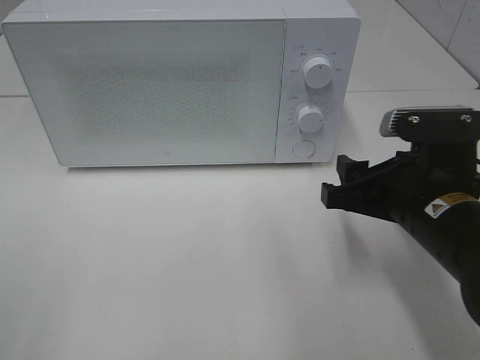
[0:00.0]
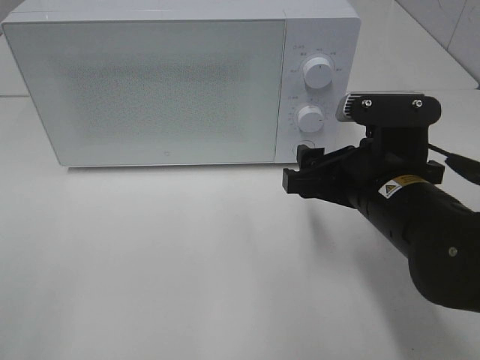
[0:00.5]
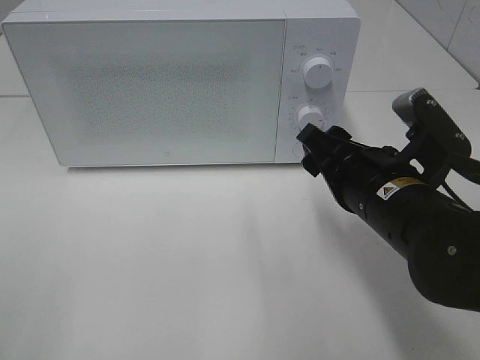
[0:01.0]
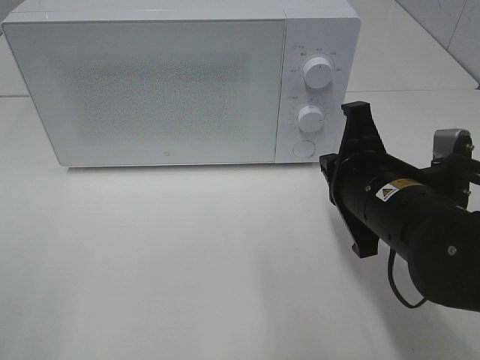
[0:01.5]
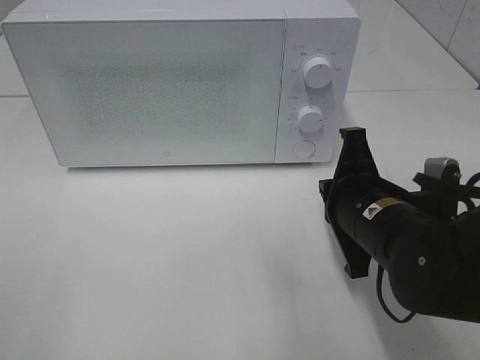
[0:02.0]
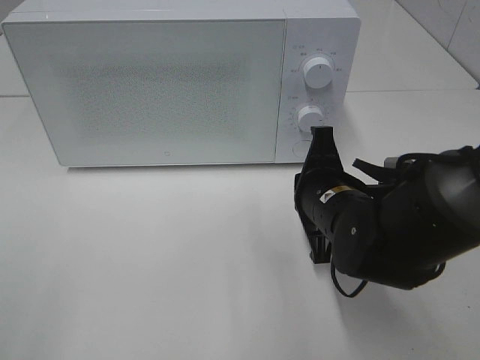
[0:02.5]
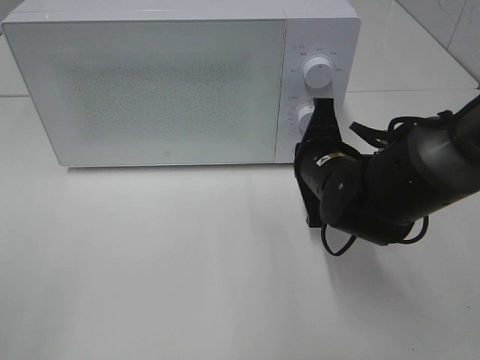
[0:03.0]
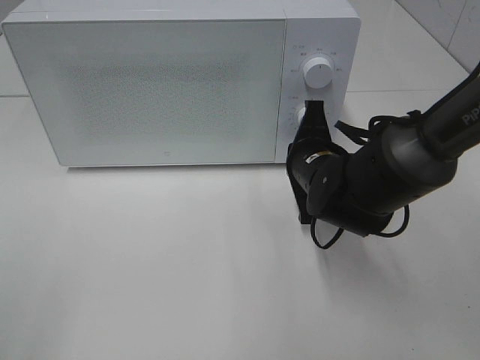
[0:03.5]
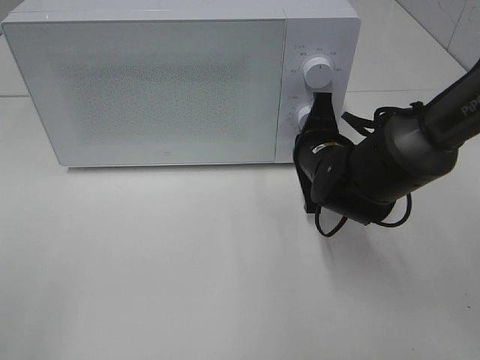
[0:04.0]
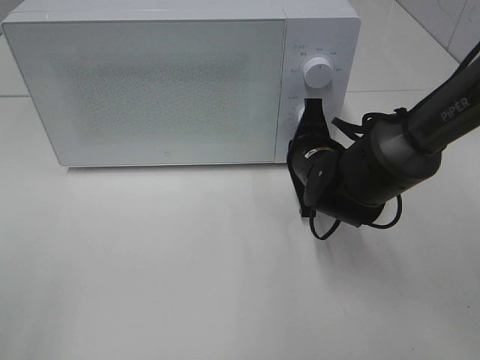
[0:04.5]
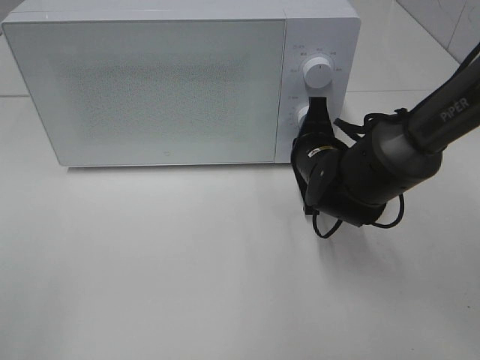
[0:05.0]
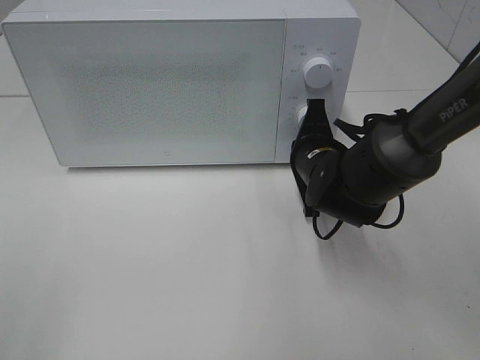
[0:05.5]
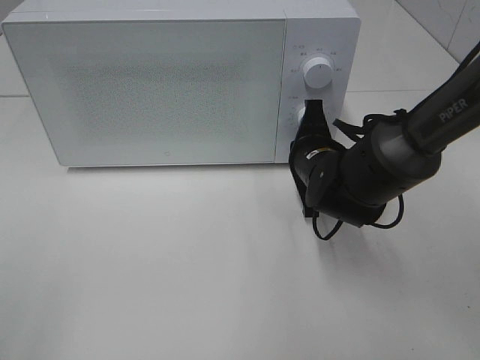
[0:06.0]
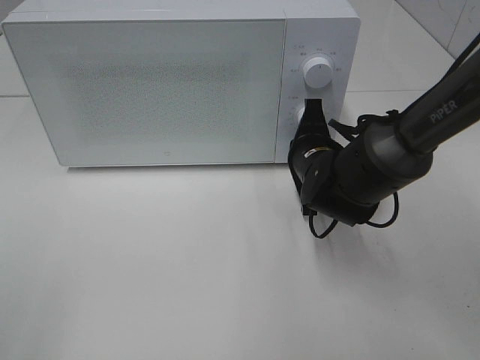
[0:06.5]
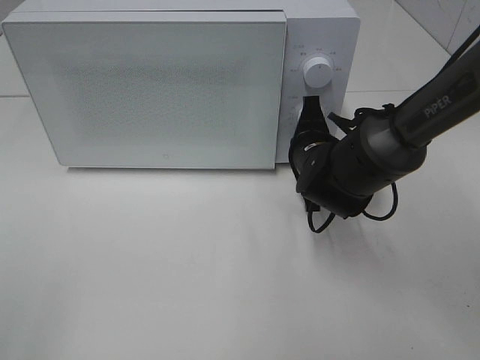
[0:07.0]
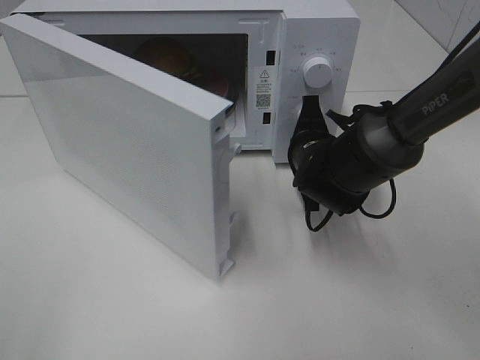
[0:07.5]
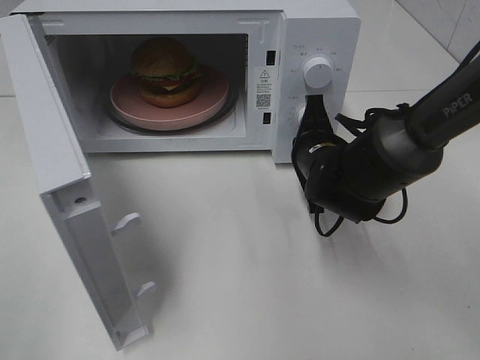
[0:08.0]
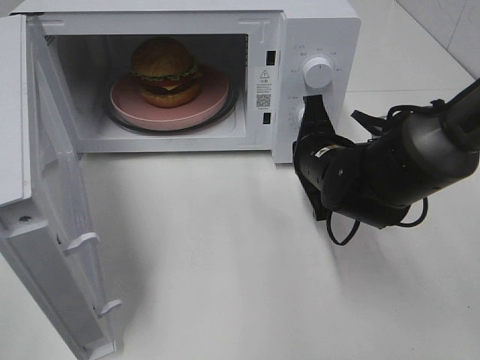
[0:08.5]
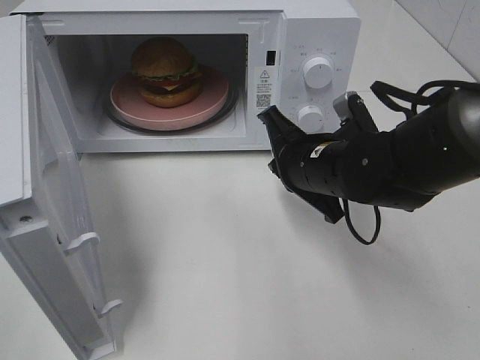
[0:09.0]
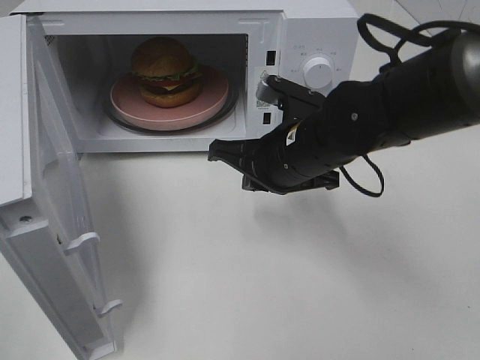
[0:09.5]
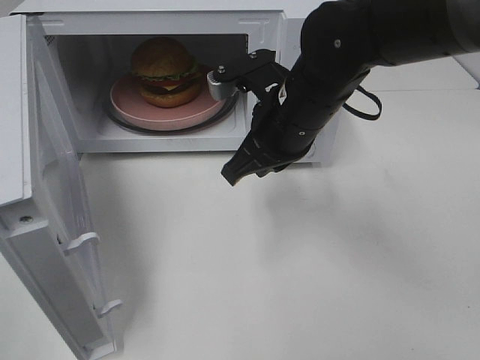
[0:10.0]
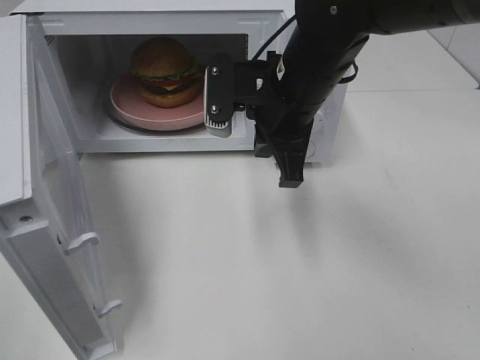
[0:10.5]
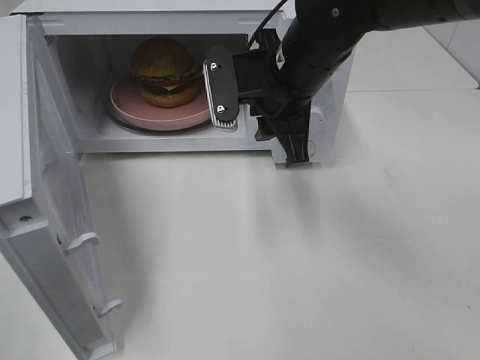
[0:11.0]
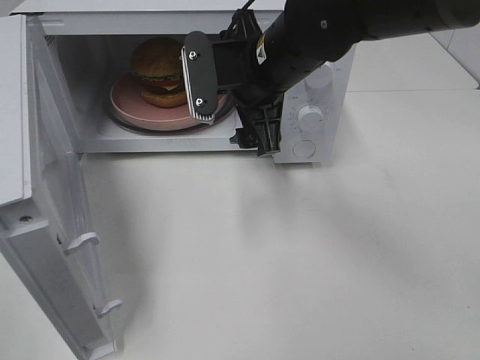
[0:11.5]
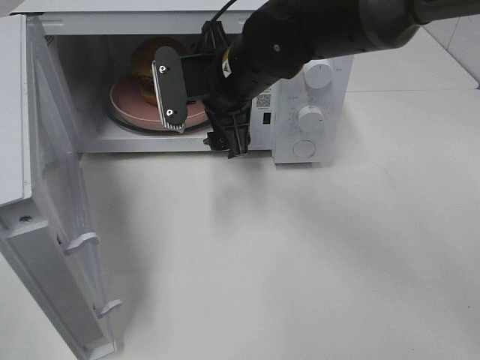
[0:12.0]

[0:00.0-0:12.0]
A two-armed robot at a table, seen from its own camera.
Task of the whole recording: Heat the burger.
Step, 0.0 to 8.0 s: Right hand: press the switch.
0.0 to 2.0 s: The right gripper shifts by about 5 cm, and closes.
2.0 to 4.0 s: The right gripper is displaced forward by about 10 cm.
4.0 to 6.0 s: The grippers stay close to where they were, moving slightly.
8.0 to 10.0 s: The right gripper moves upward and to the left, some 10 cm.
10.0 to 12.0 s: The right gripper moves to the left, approximately 5 cm, and opens.

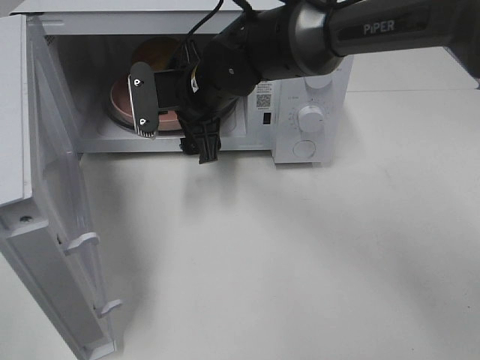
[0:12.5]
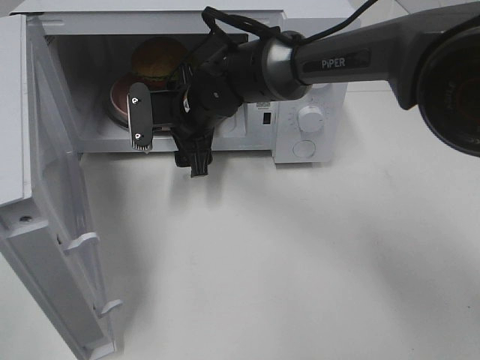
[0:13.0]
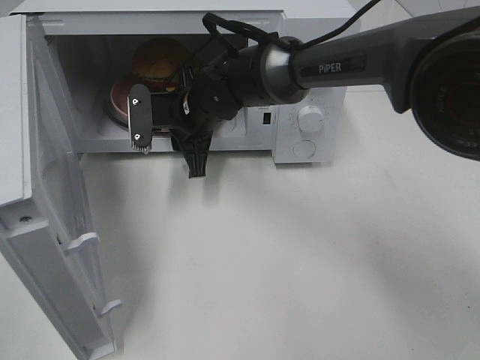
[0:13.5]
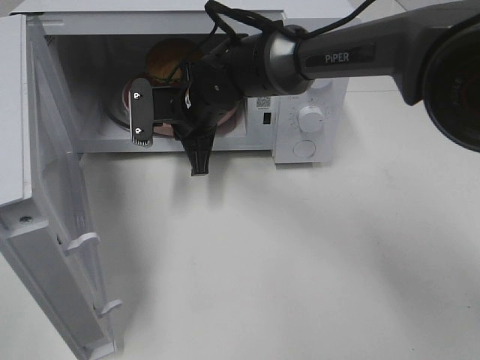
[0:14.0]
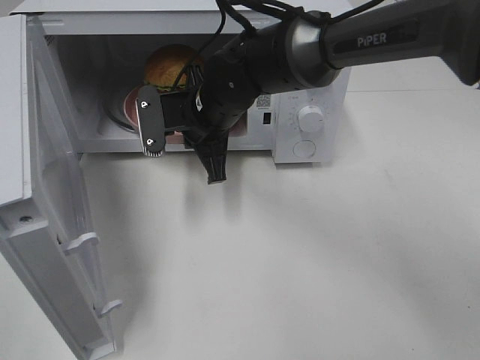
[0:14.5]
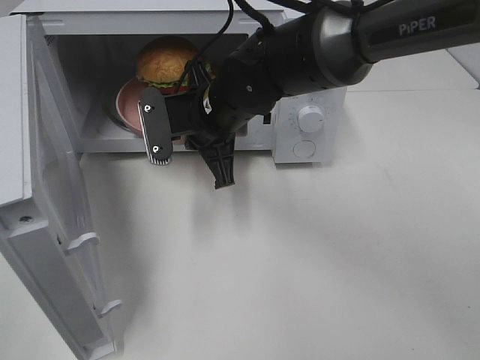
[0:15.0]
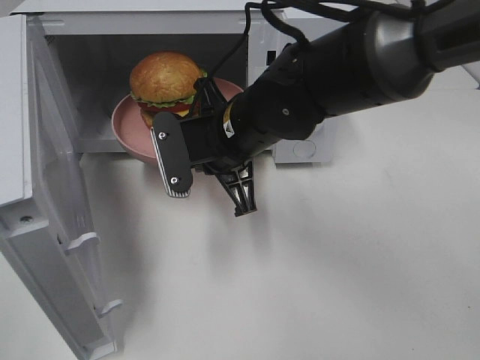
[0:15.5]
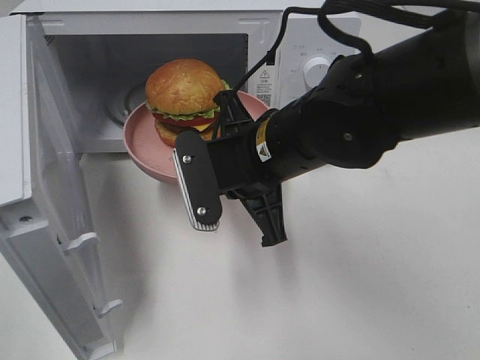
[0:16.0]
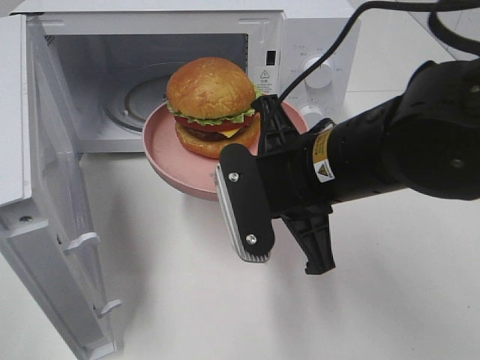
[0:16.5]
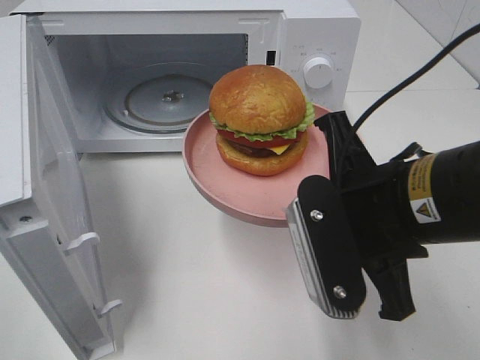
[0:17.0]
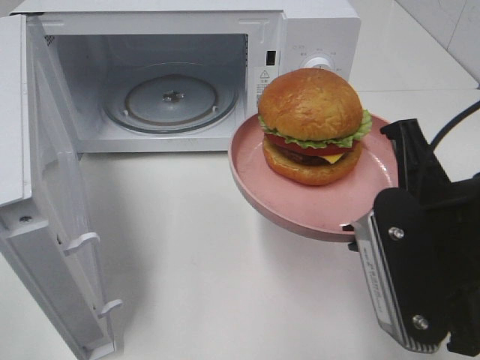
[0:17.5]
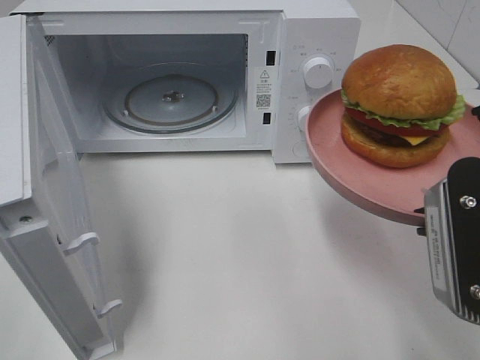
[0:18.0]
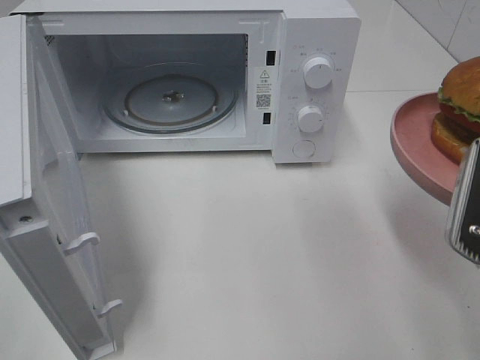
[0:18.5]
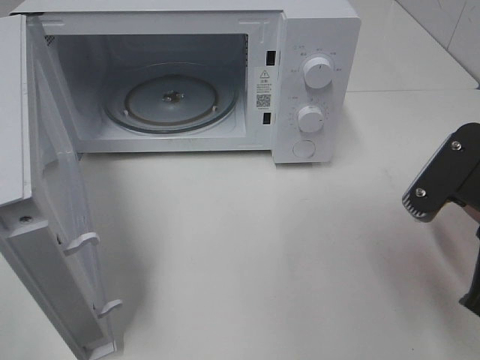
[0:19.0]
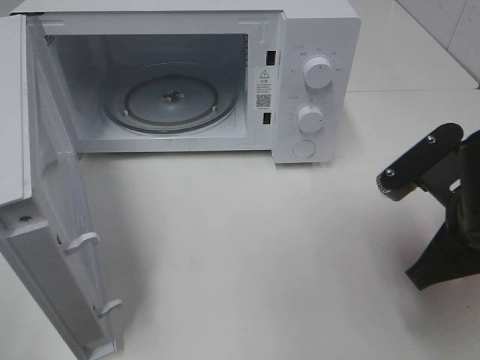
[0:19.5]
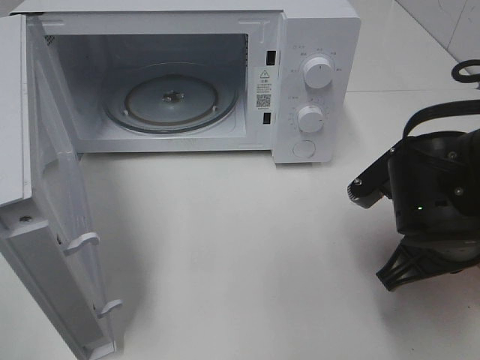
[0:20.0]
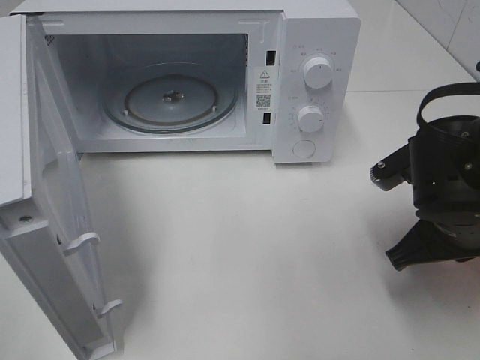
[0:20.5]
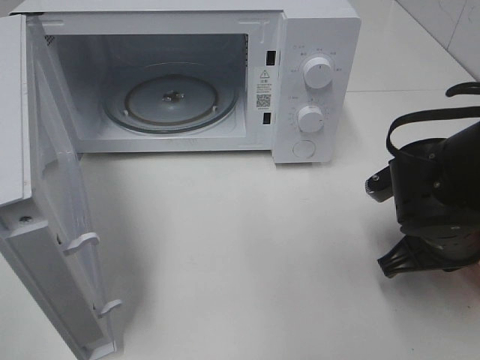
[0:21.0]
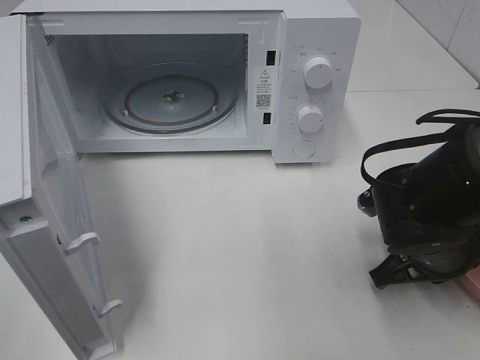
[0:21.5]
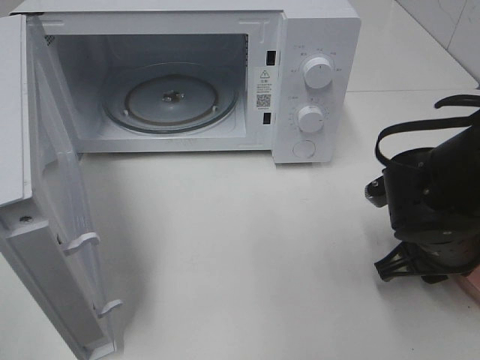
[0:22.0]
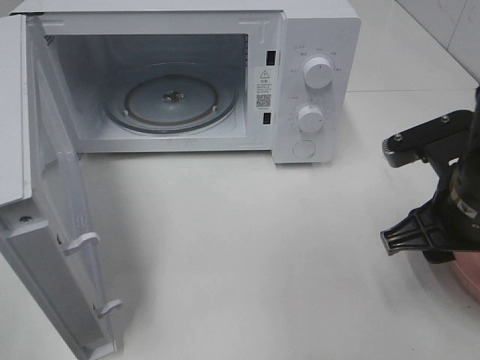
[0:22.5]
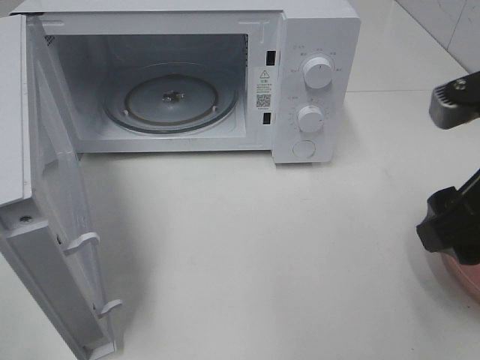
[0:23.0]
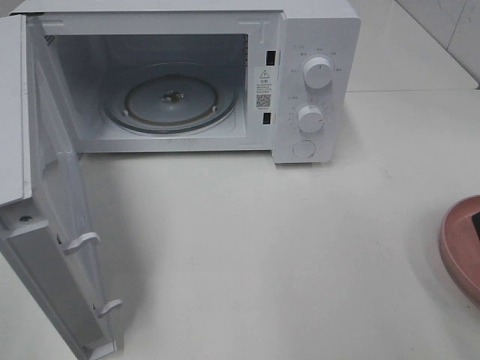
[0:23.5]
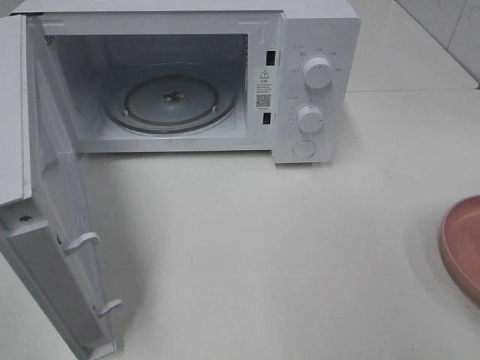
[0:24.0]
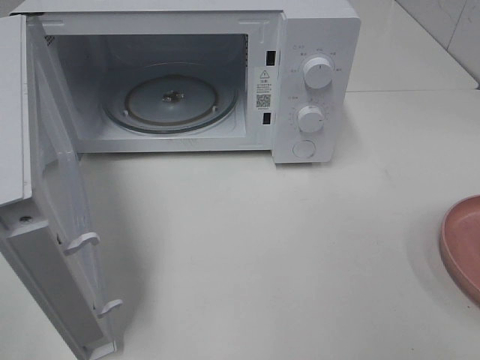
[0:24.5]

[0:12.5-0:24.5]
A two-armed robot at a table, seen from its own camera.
Task of the whole recording: Heat the burger.
Step, 14.0 to 21.5 s: Right hand: place the plate on the table.
12.5 to 14.5 s: The right gripper closes its fingers.
14.5 to 16.5 s: The right gripper heads backward and to the right, covering approximately 20 cm.
16.5 to 18.5 s: The right gripper travels to the right and backward by some 15 cm.
18.5 to 20.5 s: The right gripper moves downward and forward, approximately 15 cm.
20.5 to 22.5 s: The right gripper opens its fingers.
22.5 to 24.5 s: The right gripper goes roughly 20 cm backward, upward and to the right.

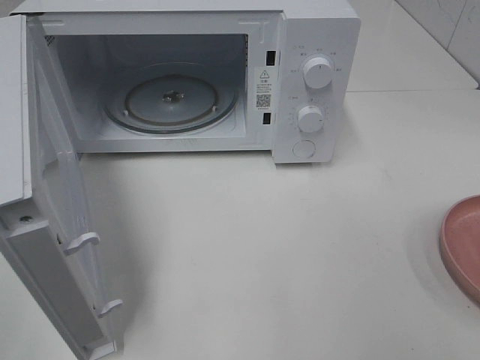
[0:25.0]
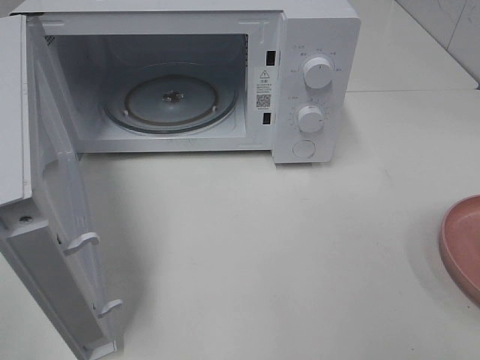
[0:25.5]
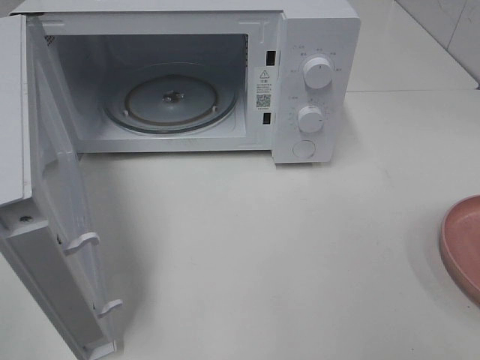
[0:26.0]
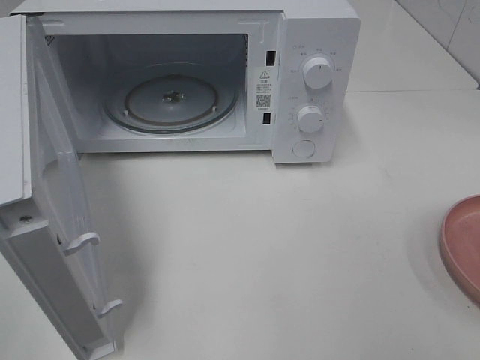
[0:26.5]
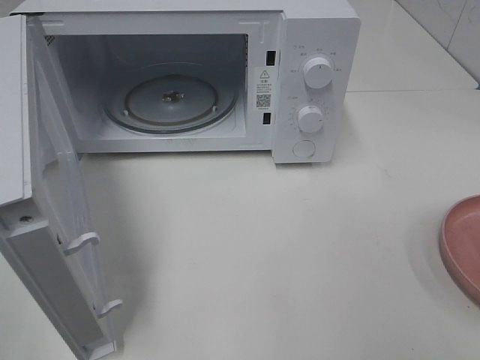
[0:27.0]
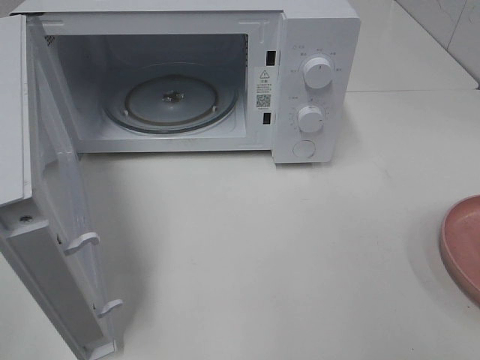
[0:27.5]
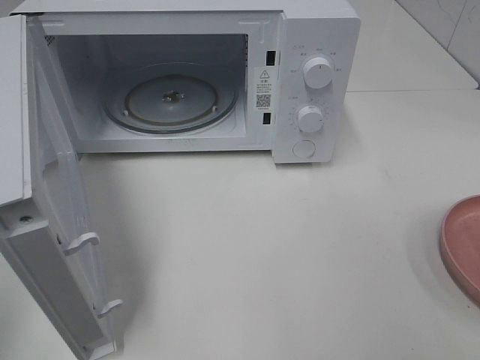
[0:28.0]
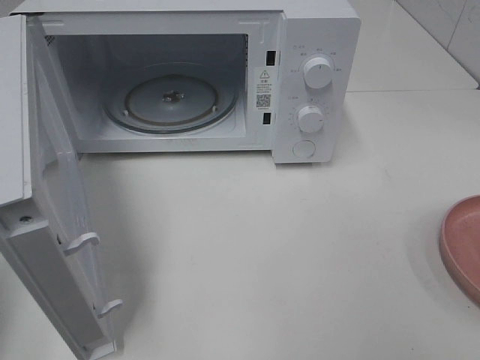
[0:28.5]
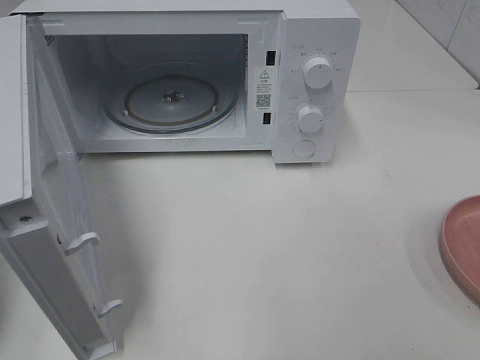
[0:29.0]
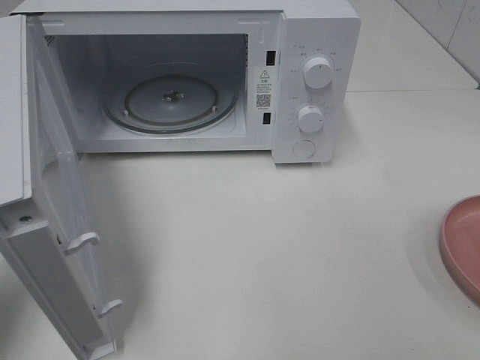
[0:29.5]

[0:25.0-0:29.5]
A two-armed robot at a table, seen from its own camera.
Task of the whole recording: Heat the burger.
25.0 to 27.0 s: Neither gripper changes place.
27.0 to 29.5 s: The left gripper goes about 20 cm forward and downward, and closes its fingers.
